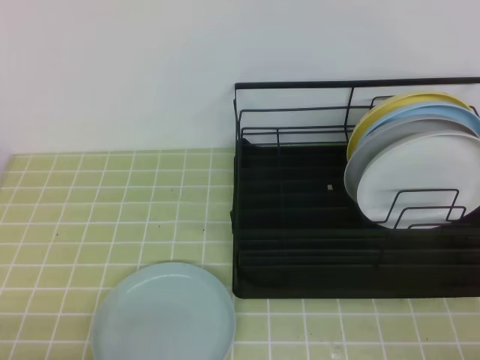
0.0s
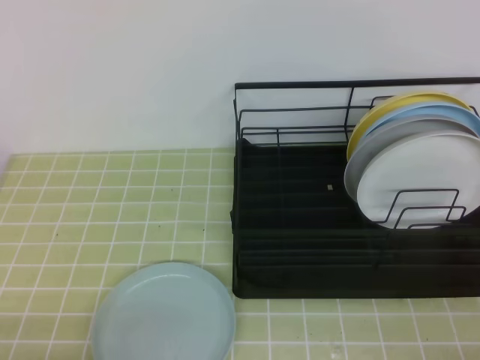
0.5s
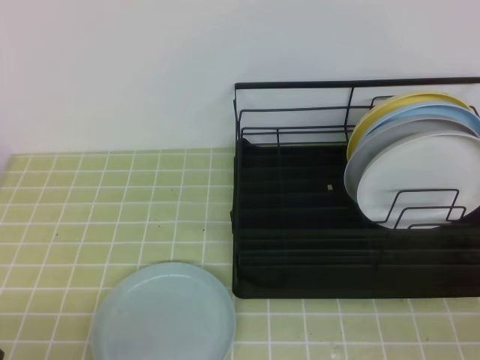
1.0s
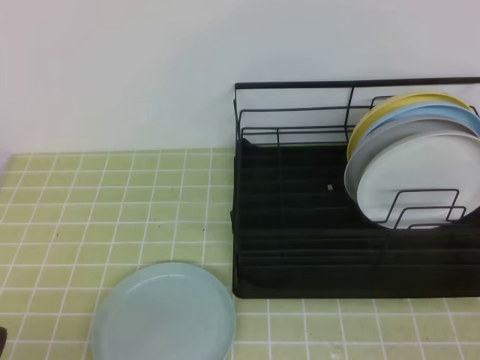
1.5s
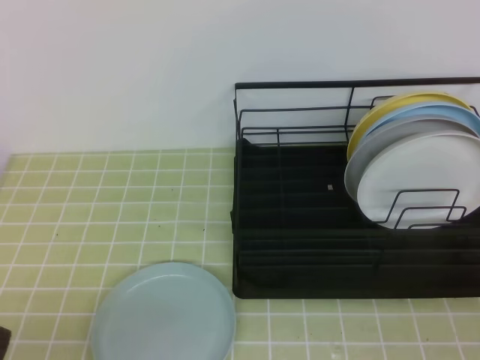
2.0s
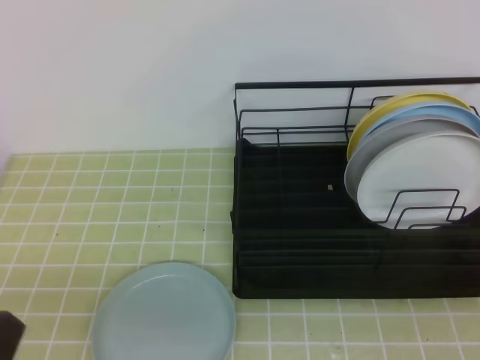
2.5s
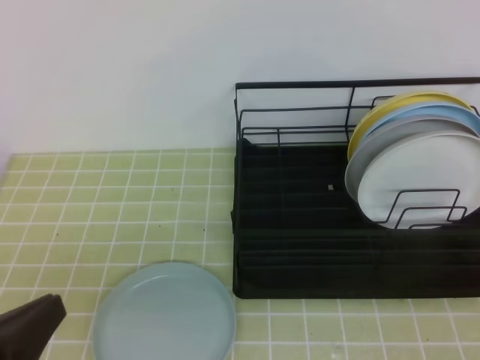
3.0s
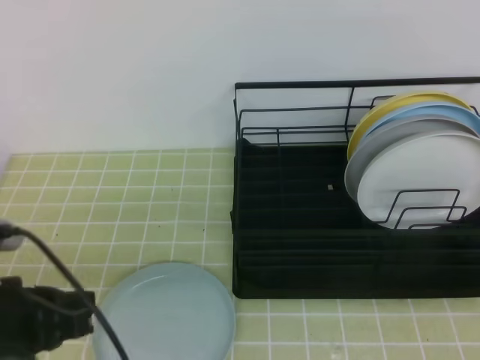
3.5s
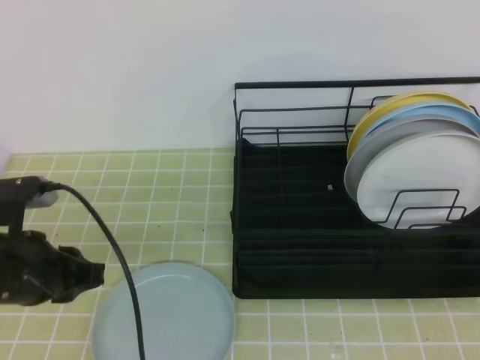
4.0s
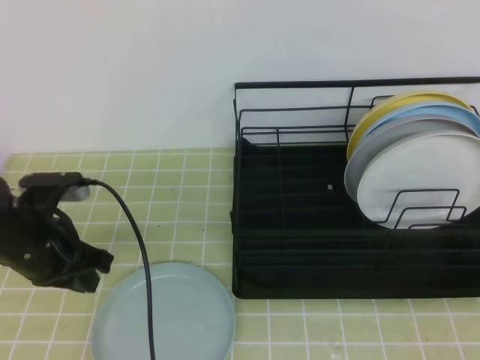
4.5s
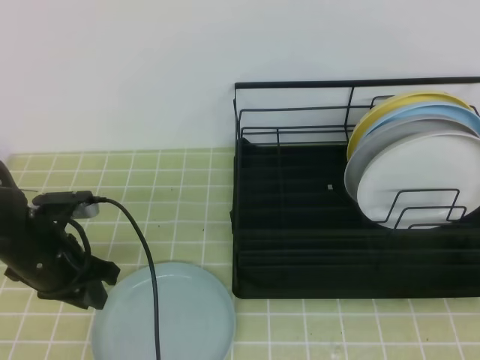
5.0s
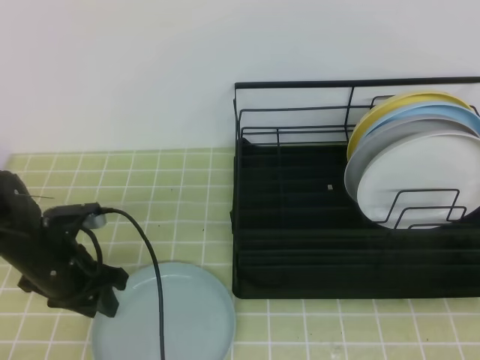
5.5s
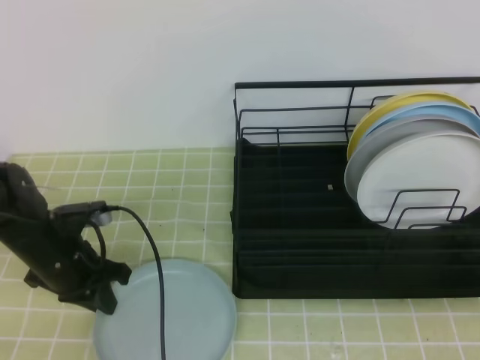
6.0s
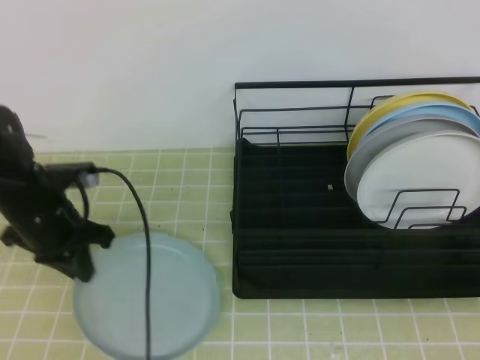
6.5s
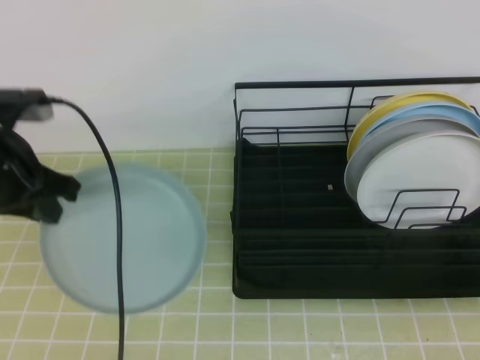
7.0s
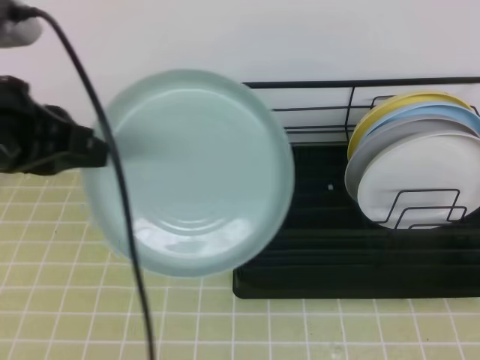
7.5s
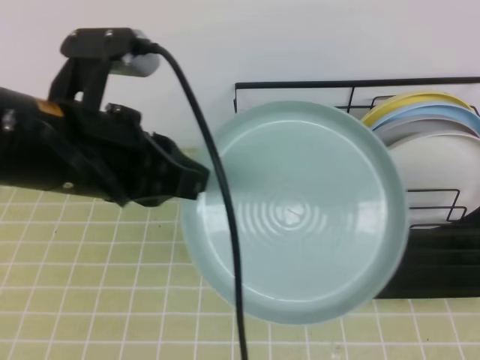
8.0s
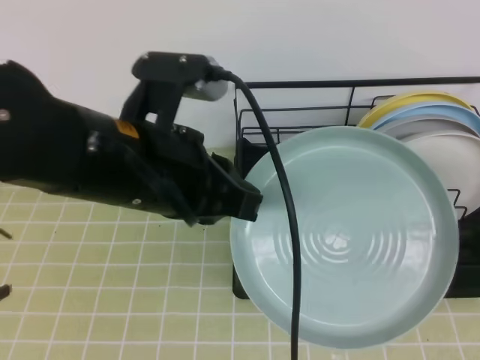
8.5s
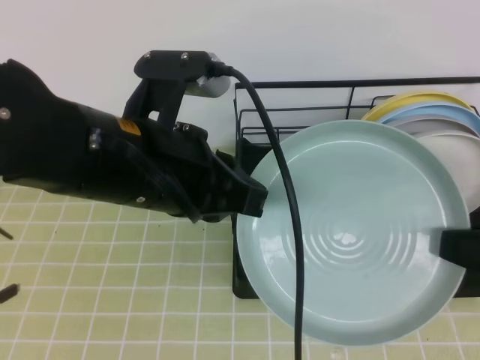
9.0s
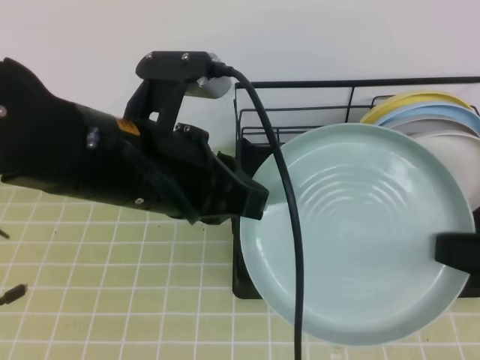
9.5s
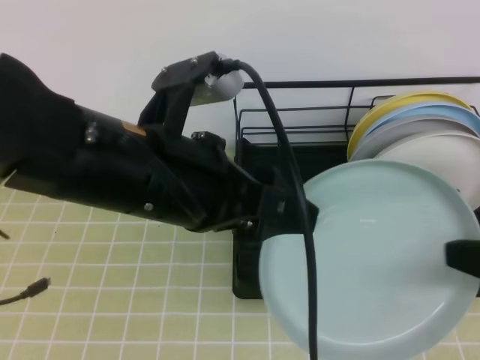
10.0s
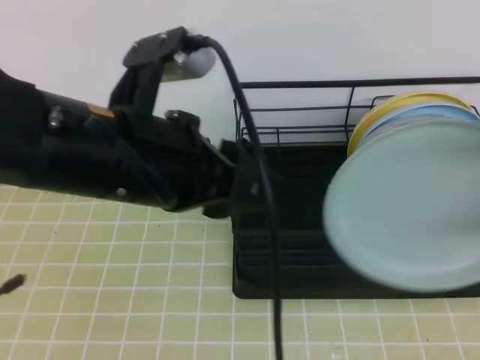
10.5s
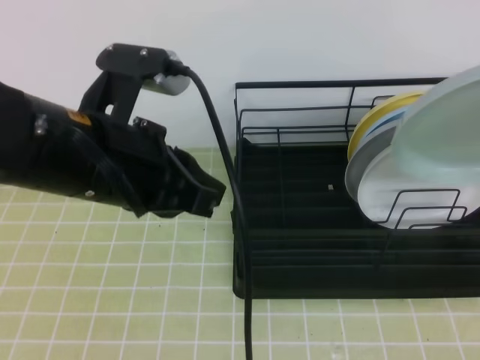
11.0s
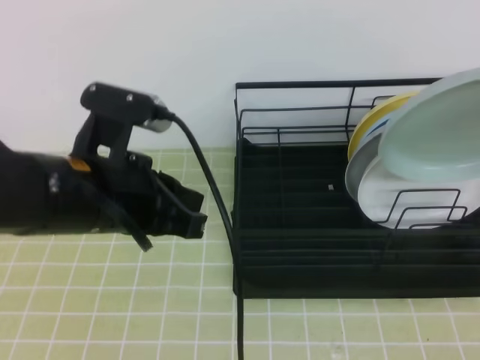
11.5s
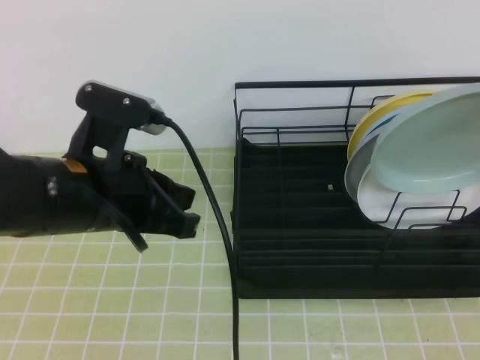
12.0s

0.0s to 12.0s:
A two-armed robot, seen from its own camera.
2.0s to 4.0s: The left gripper is displaced forward by approximately 15 cm.
4.0s to 6.0s: The left gripper goes about 15 cm forward and downward, and opens and closes again.
6.0s to 8.0s: The right gripper opens up, while the left gripper moves upward, backward and to the right, about 25 cm.
8.0s to 10.0s: The left gripper shifts roughly 5 cm to the right, and opens up. Meanwhile the right gripper goes roughly 5 cm forward, and opens and closes again.
10.0s to 12.0s: The left gripper shifts about 10 cm to the left and downward, and closes; the right gripper goes about 10 cm forward and upward.

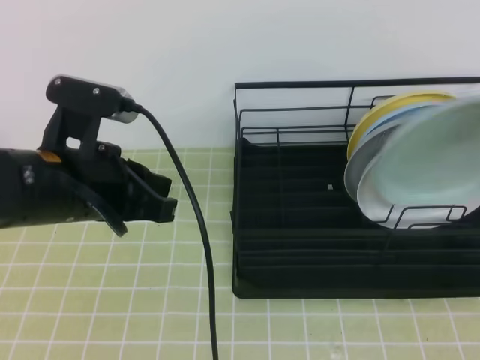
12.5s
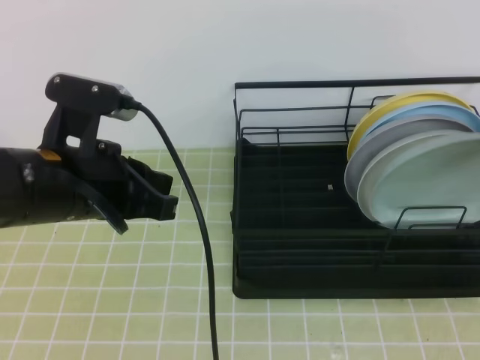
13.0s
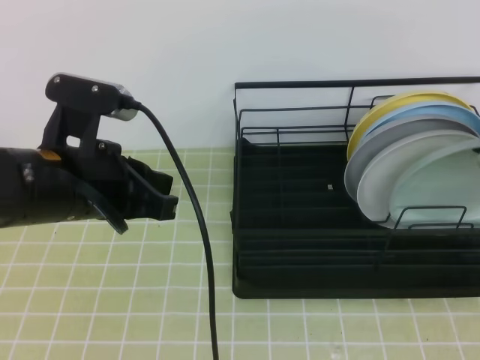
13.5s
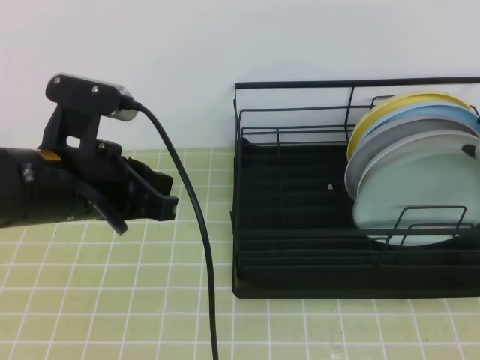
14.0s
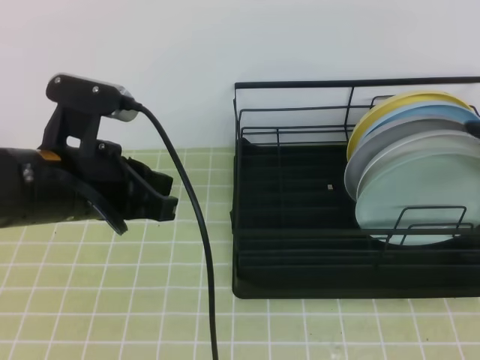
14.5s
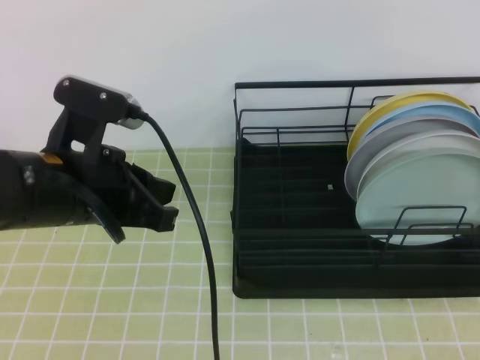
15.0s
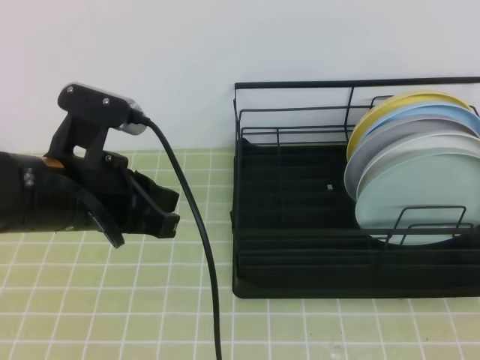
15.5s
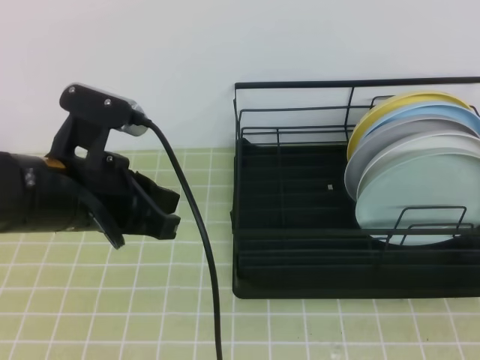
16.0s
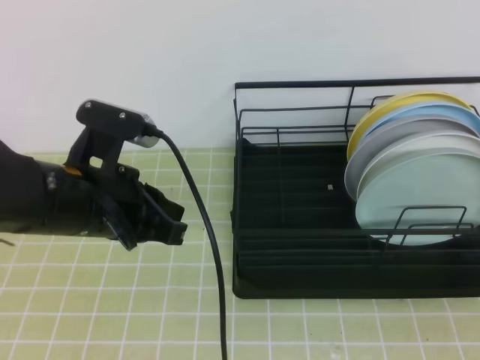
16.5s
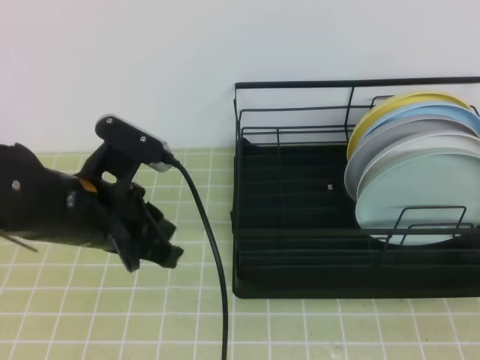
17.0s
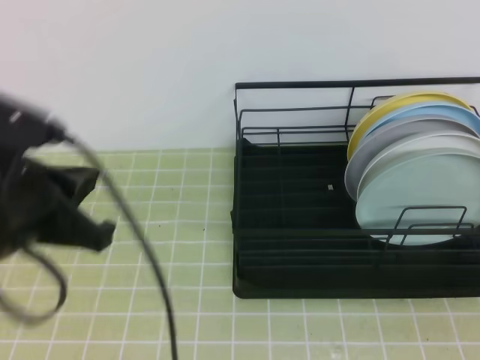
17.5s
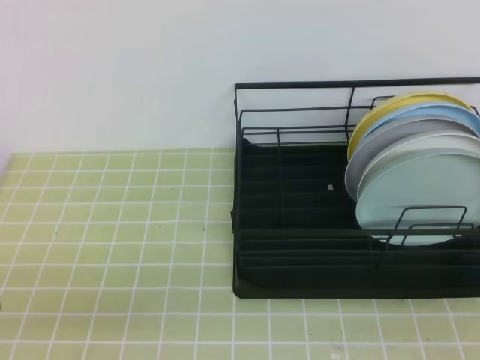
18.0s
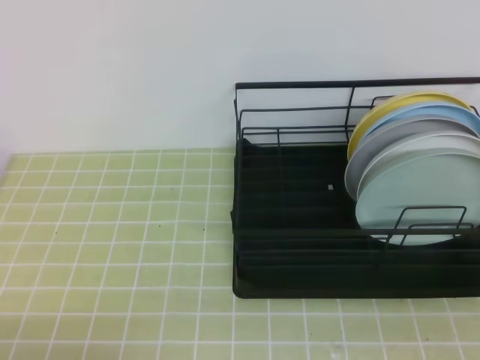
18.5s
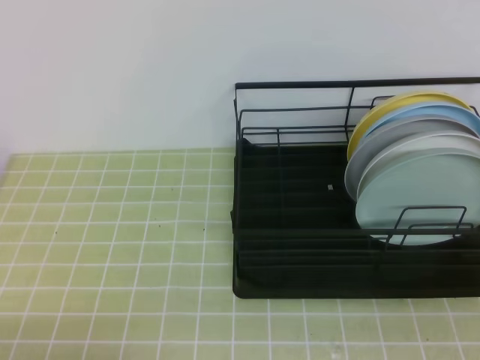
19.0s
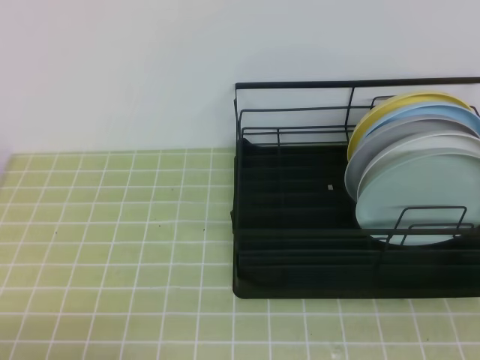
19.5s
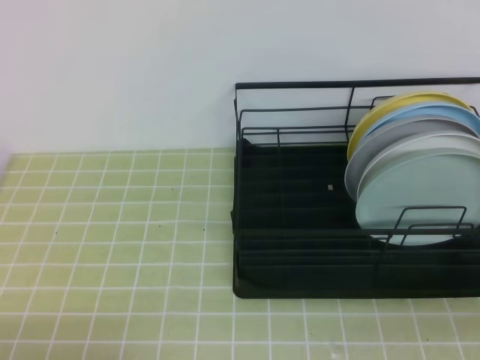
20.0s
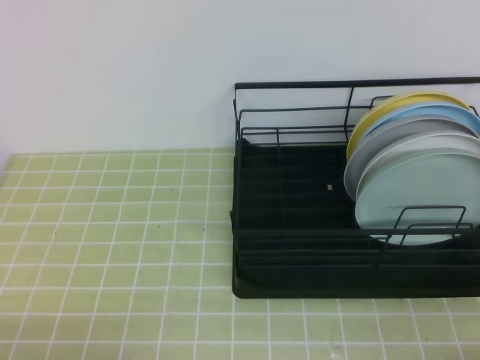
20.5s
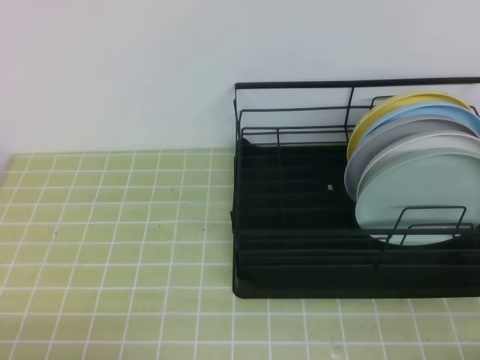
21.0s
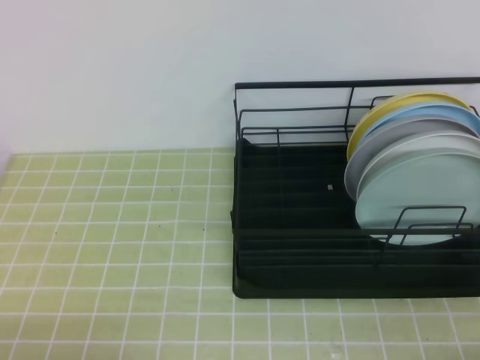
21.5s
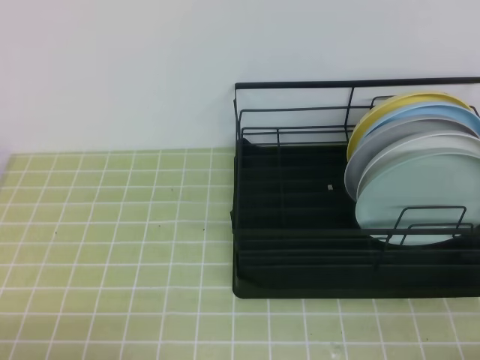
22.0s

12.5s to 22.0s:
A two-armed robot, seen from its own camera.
12.5s to 14.5s: The right gripper opens.
14.5s to 16.5s: The right gripper goes approximately 25 cm backward, and closes.
16.5s to 18.0s: The left gripper travels backward and to the left by some 20 cm.
18.0s to 20.0s: The left gripper heads downward, covering some 5 cm.
